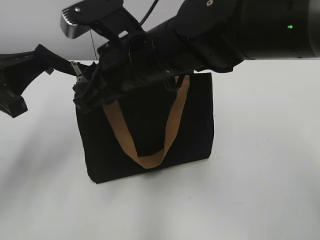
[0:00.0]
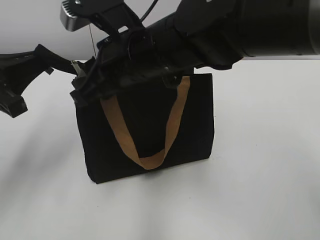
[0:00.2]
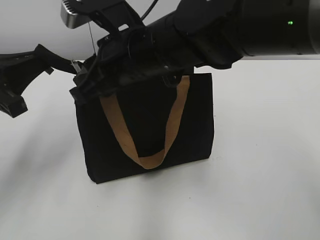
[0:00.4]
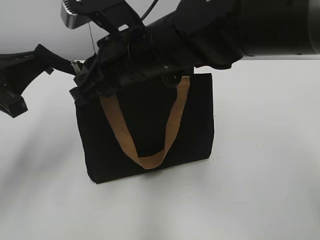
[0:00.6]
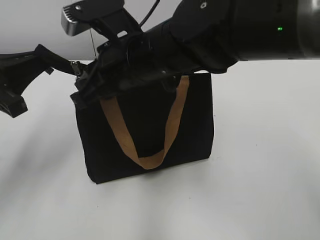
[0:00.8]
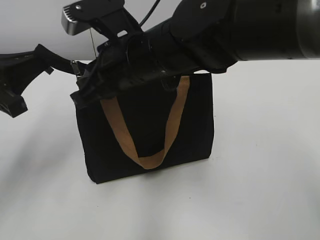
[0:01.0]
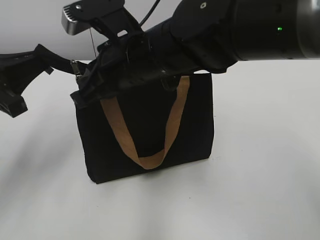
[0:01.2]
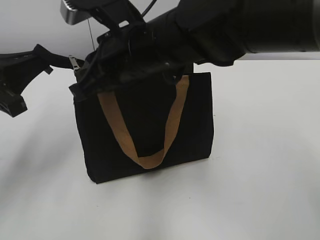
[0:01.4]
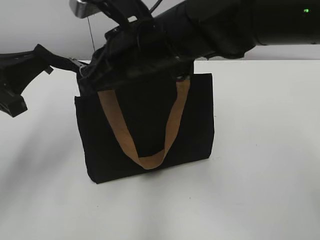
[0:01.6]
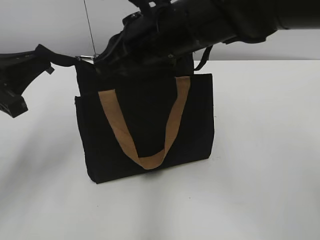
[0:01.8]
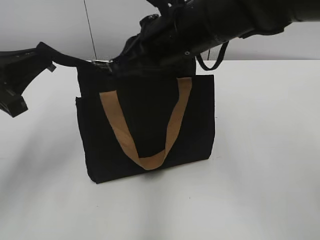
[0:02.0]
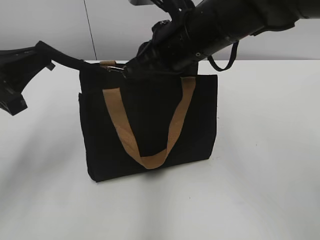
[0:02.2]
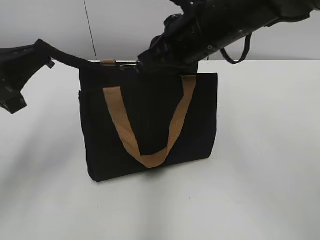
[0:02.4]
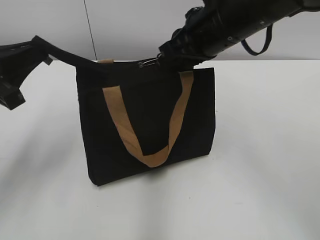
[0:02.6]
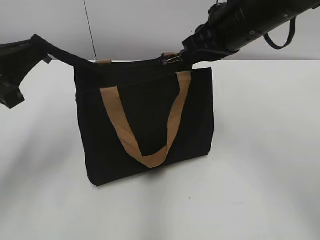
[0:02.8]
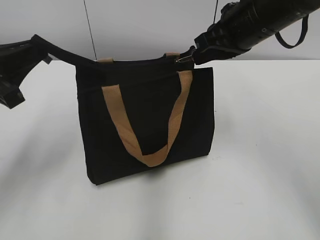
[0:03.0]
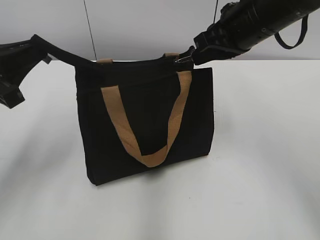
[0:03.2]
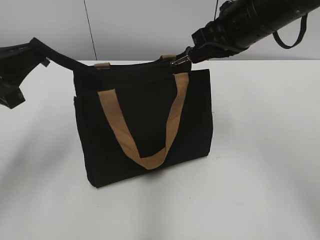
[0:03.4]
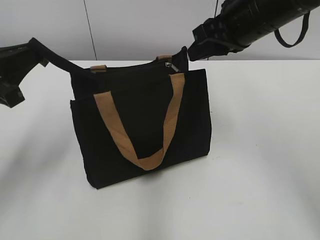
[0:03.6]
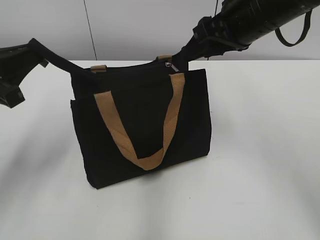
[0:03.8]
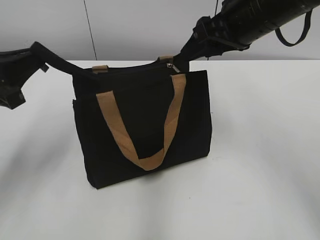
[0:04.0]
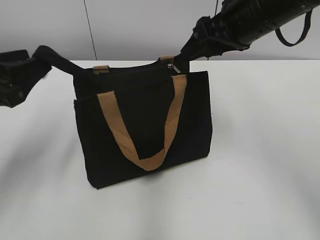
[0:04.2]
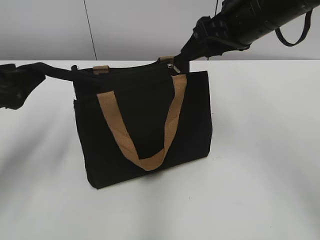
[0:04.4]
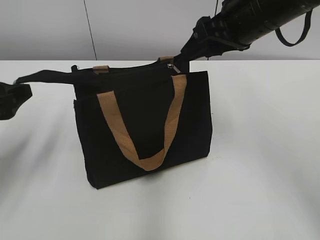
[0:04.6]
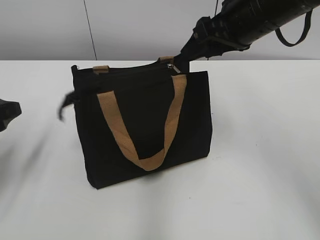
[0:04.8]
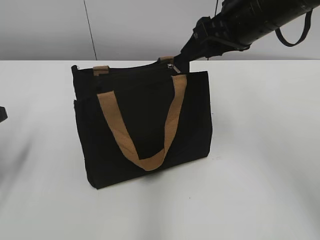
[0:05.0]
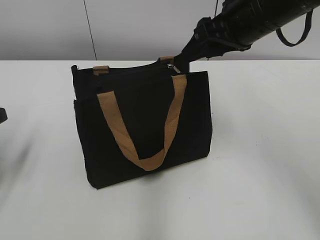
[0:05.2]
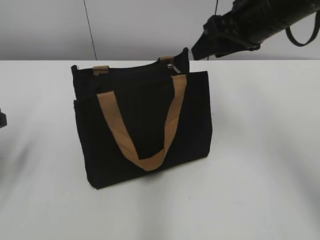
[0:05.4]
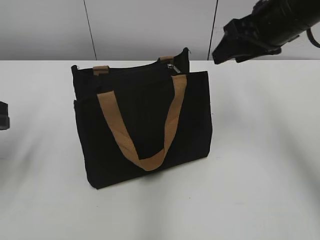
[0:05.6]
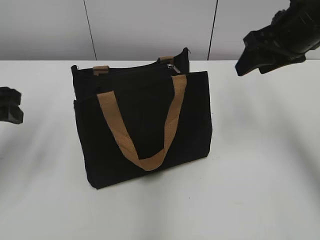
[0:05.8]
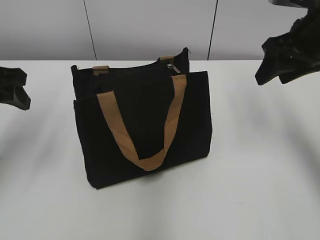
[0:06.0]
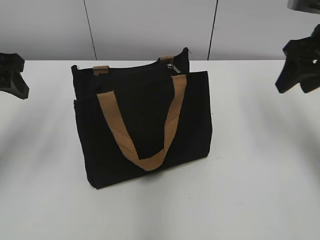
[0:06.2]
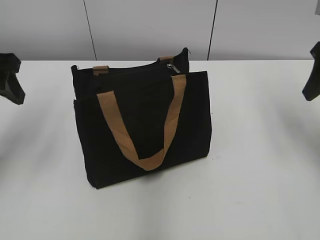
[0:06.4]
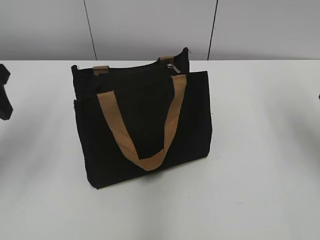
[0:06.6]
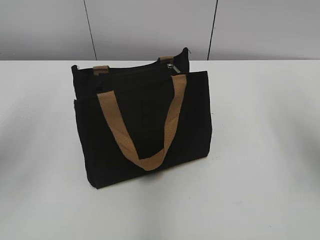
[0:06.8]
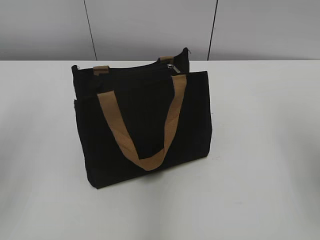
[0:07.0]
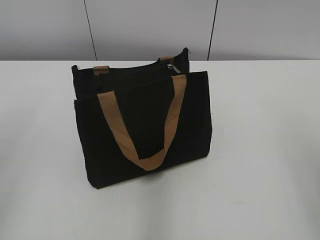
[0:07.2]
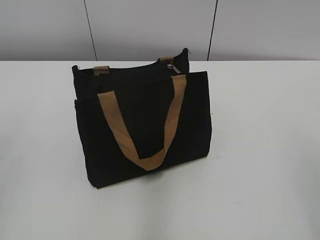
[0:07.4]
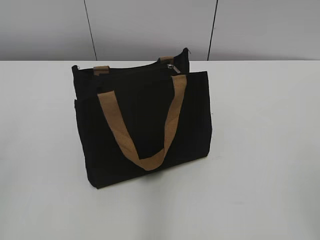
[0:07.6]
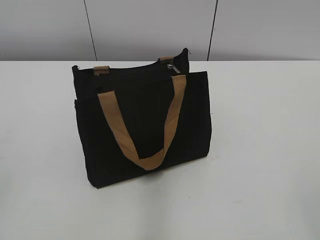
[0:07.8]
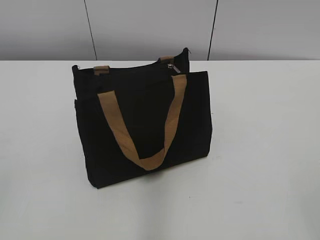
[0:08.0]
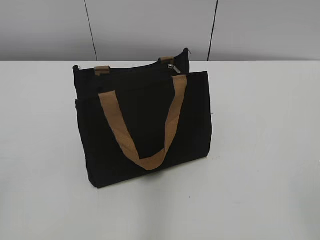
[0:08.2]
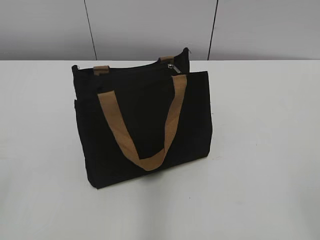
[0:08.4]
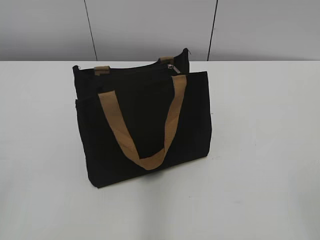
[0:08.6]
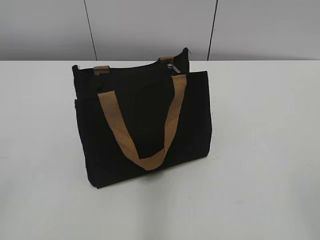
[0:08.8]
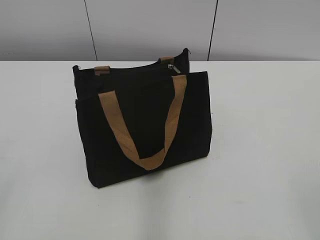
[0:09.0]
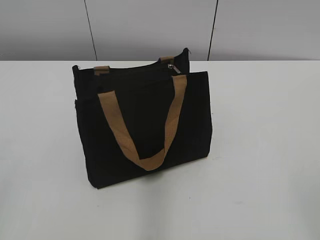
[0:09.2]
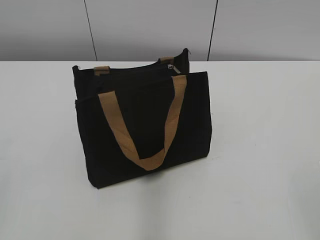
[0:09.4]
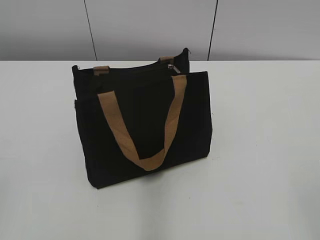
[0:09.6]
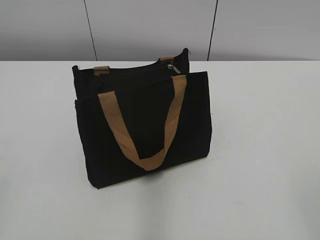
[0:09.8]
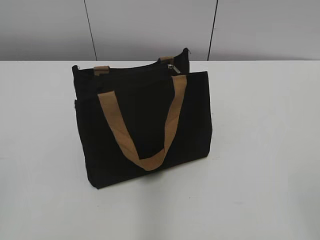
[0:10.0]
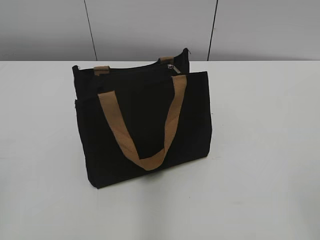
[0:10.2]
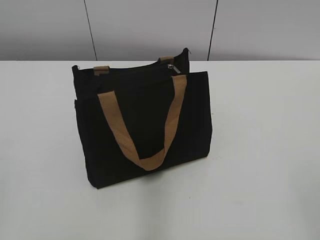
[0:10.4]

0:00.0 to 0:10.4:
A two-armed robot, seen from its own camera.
Step, 0:00.0 to 0:03.4: Zip up the bag with your right hand.
Step, 0:03.8 to 0:04.6: Grab the zipper with your left hand.
0:00.0 to 0:01.4: The right gripper closes its fingers.
0:01.4 to 0:03.0: The right gripper travels to the right by some 15 cm.
0:03.0 to 0:04.4: The left gripper opens its fingers. The right gripper opens its fingers.
0:04.4 to 0:06.0: The right gripper heads to the right, covering approximately 10 cm. Meanwhile the left gripper ends up approximately 5 cm from where it was.
0:06.0 to 0:07.4: The left gripper heads backward and upward, covering roughly 20 cm; the right gripper moves backward, roughly 25 cm.

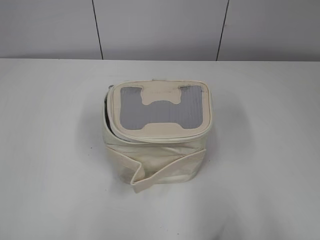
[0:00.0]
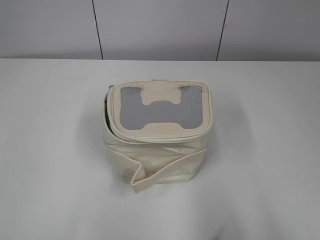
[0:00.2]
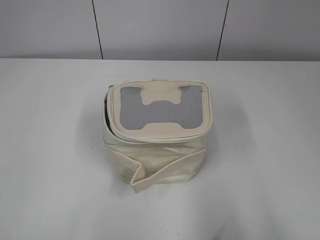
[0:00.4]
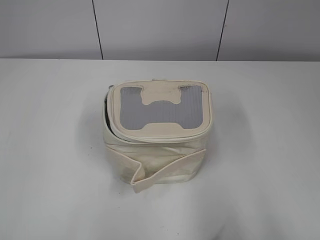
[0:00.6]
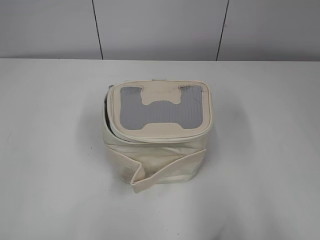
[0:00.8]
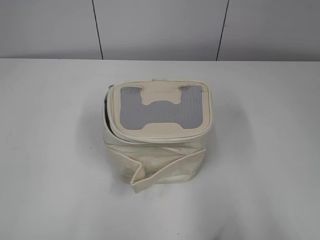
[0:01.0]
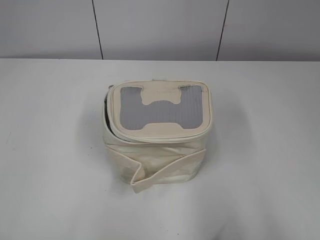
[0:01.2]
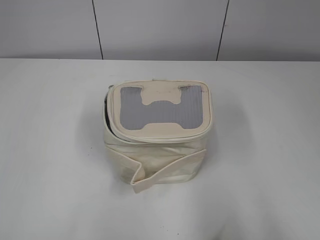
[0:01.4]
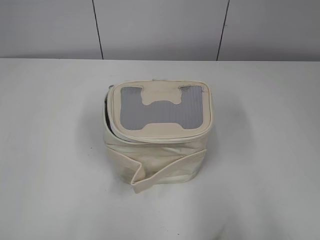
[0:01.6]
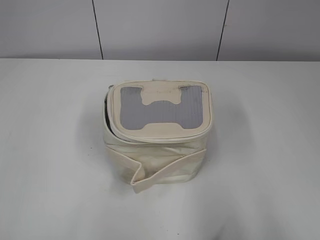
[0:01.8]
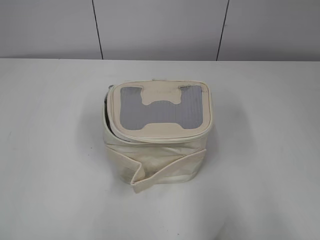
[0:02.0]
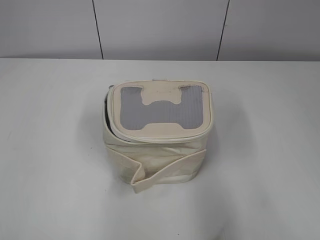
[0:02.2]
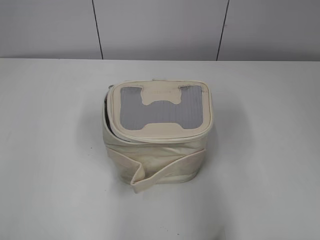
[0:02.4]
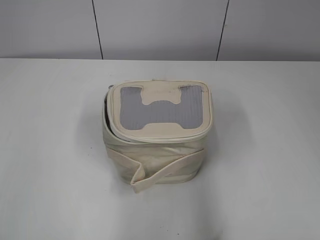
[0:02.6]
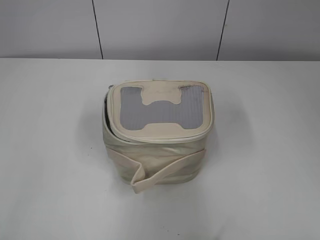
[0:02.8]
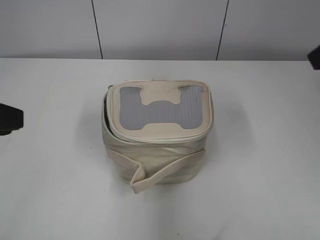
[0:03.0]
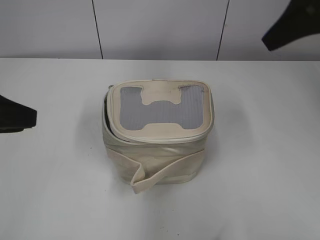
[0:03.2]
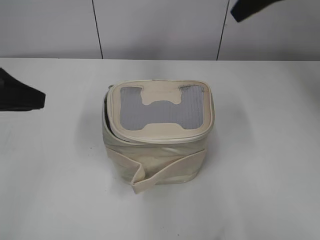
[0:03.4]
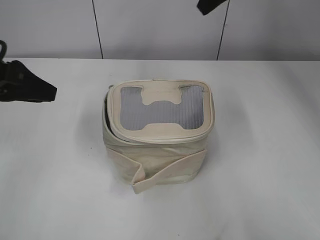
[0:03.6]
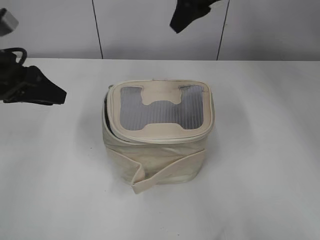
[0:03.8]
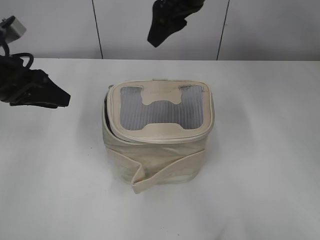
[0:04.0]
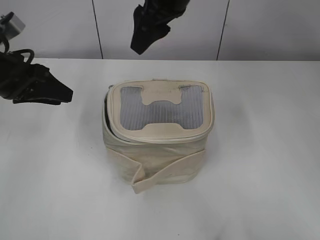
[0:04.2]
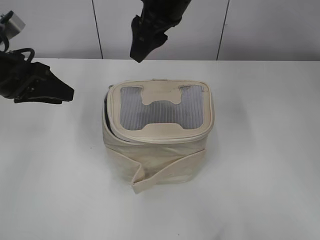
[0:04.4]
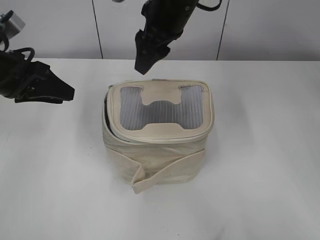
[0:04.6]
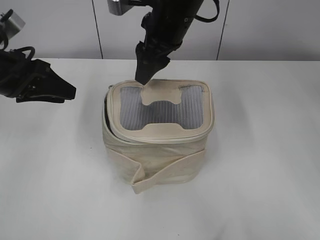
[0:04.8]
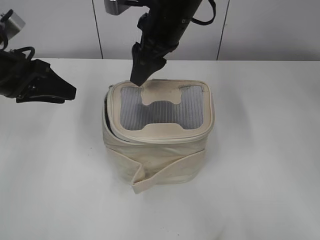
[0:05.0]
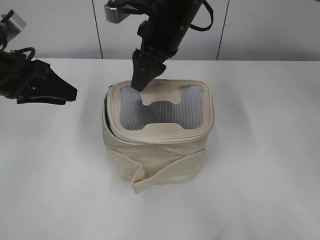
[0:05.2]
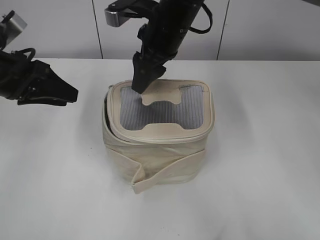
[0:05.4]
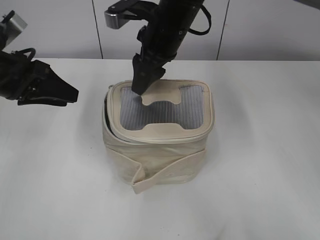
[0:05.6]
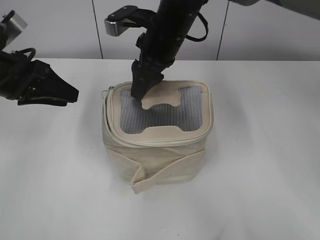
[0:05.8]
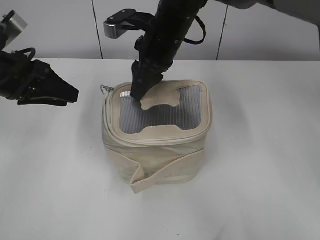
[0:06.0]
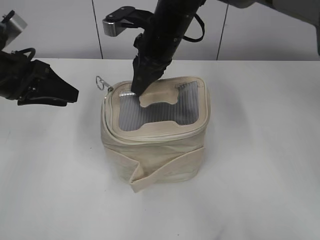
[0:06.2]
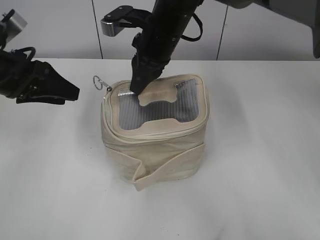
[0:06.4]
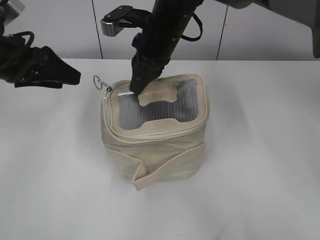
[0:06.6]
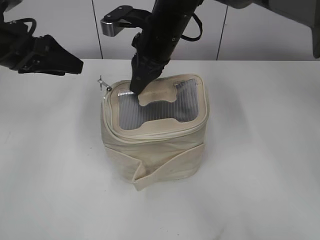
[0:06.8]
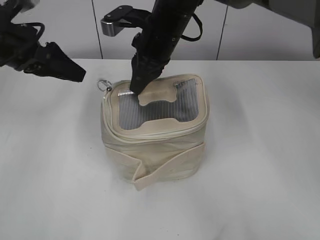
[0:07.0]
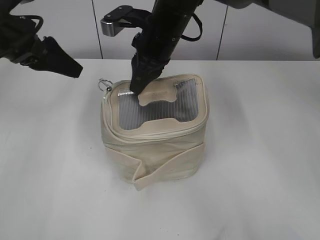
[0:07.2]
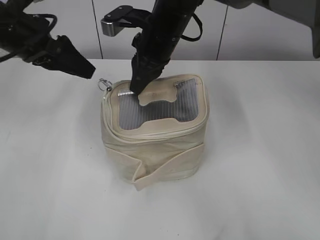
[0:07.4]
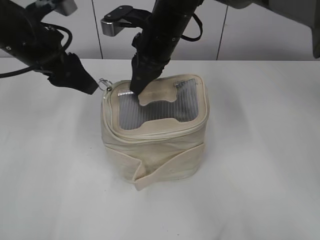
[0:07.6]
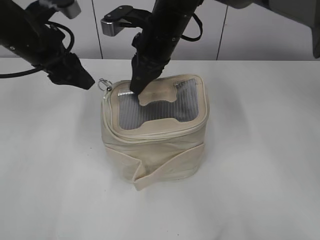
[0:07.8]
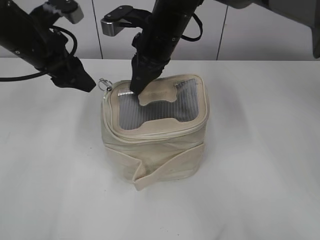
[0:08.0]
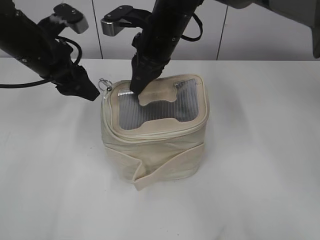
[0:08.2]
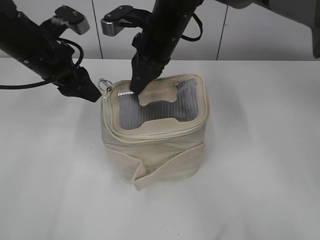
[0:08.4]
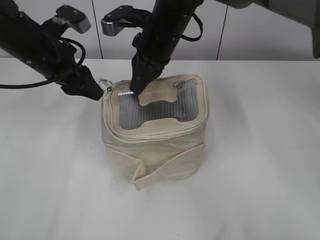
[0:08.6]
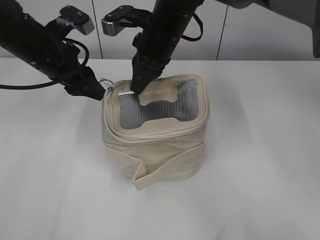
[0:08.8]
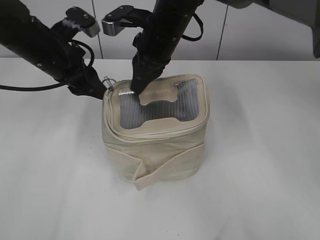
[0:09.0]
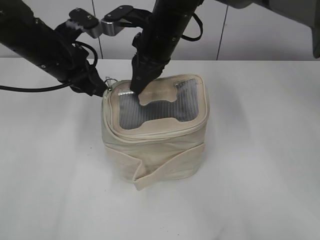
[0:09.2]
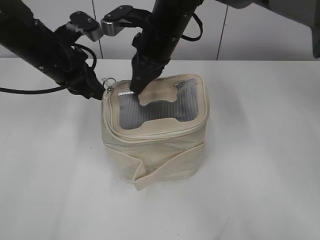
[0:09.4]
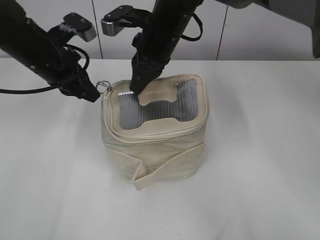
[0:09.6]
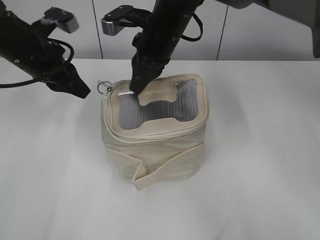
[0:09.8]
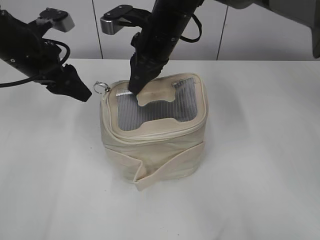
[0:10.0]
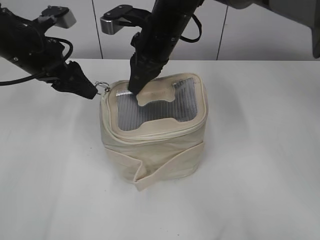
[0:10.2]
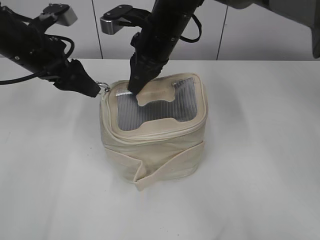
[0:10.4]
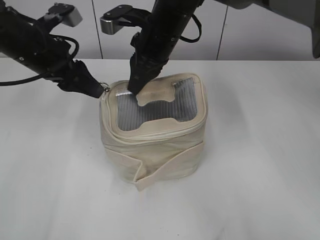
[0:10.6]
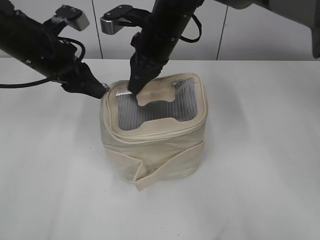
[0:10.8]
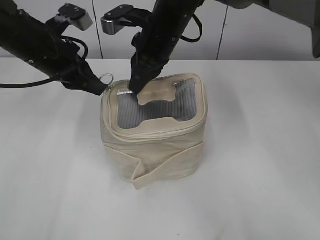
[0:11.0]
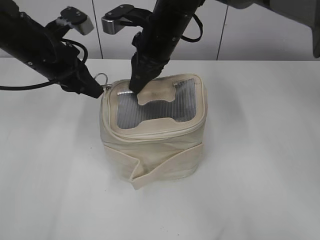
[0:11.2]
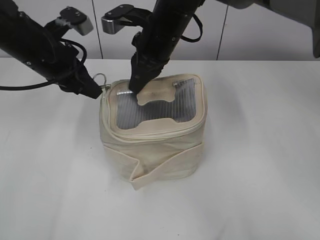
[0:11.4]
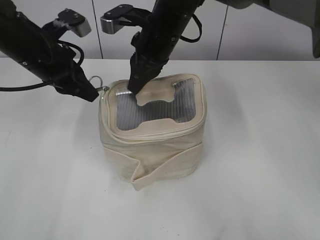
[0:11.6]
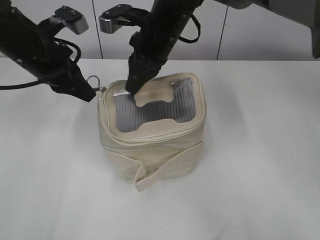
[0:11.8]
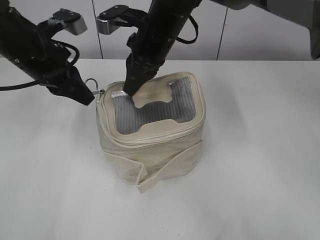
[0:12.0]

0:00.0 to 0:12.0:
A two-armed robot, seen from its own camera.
0:01.6 to 0:03.0: The left gripper is displaced forward and to the right by some 15 cm; the right gripper heads forward, covering approximately 25 cm.
0:03.0 to 0:04.4: The right gripper moves to the left and forward, approximately 25 cm, while the left gripper goes some 15 cm forward.
0:04.4 to 0:06.0: The right gripper goes about 10 cm downward.
0:06.0 to 0:07.6: The right gripper closes up, while the left gripper ends up approximately 5 cm from where it was, and opens up.
0:07.6 to 0:09.0: The left gripper closes its fingers.
0:09.0 to 0:10.4: The left gripper closes and opens again.
0:10.4 to 0:12.0: The left gripper closes its fingers.
